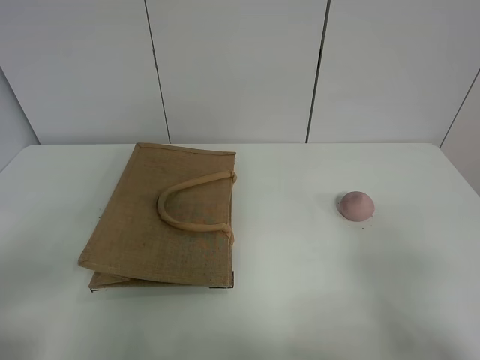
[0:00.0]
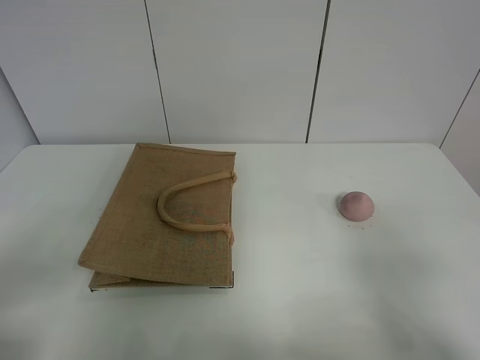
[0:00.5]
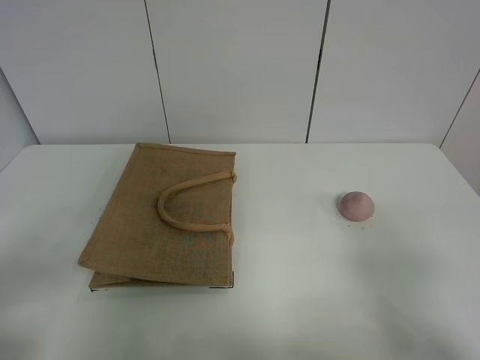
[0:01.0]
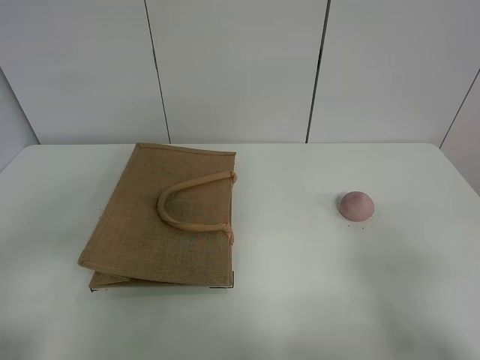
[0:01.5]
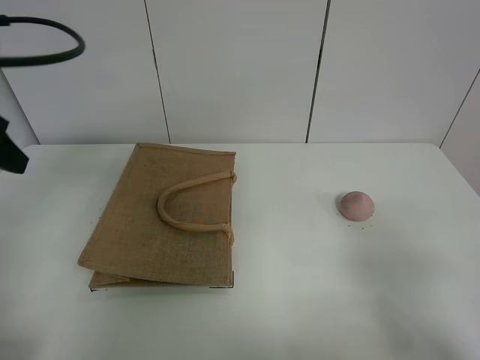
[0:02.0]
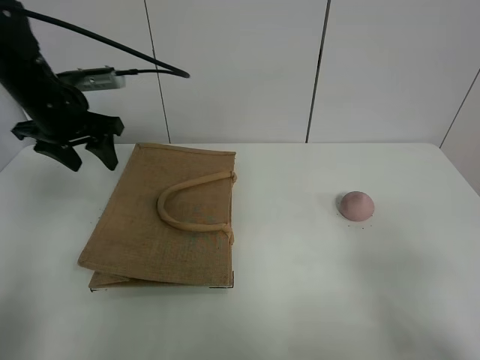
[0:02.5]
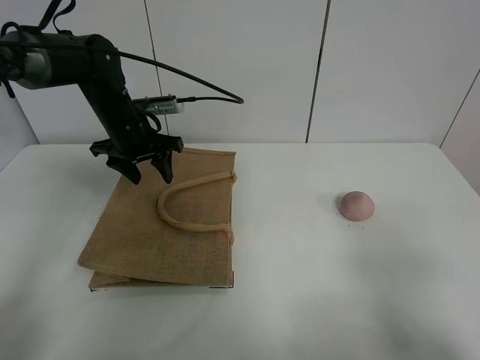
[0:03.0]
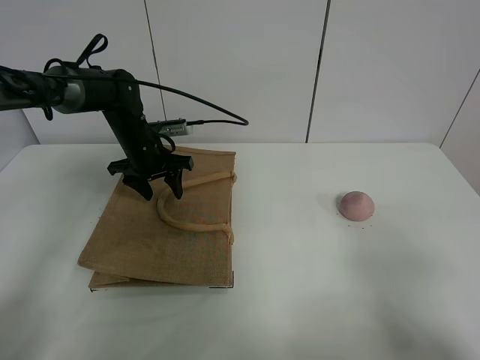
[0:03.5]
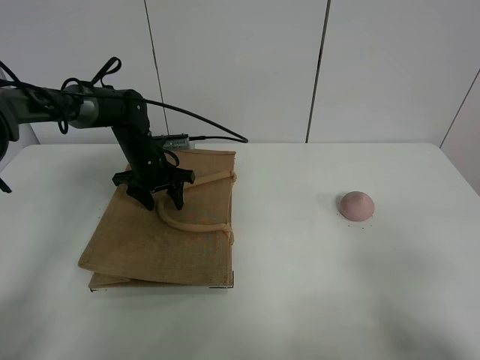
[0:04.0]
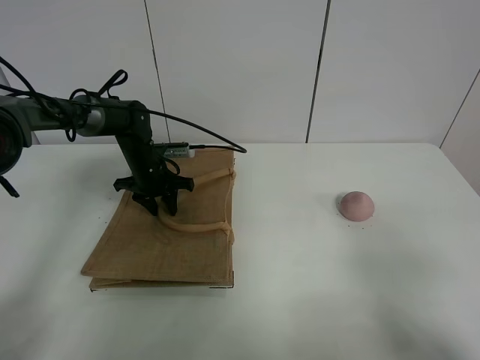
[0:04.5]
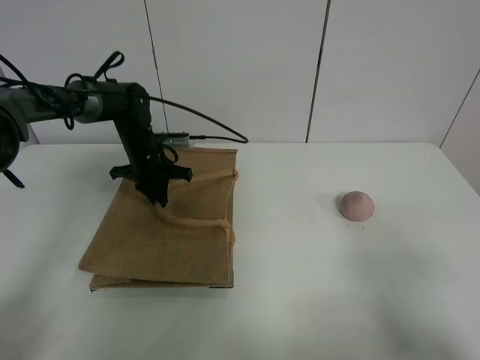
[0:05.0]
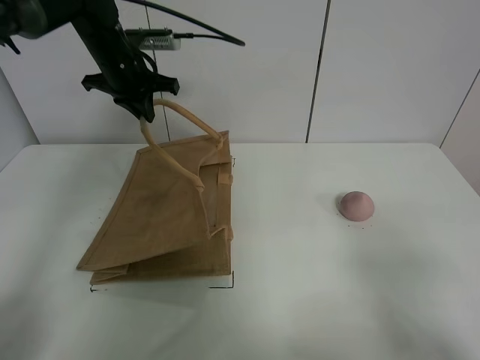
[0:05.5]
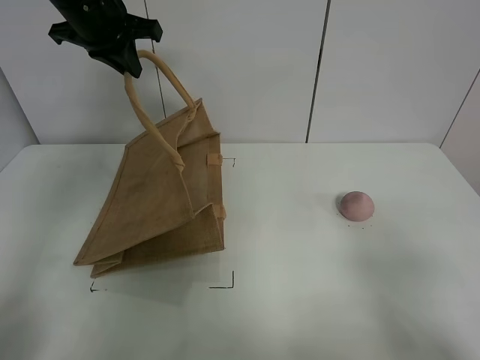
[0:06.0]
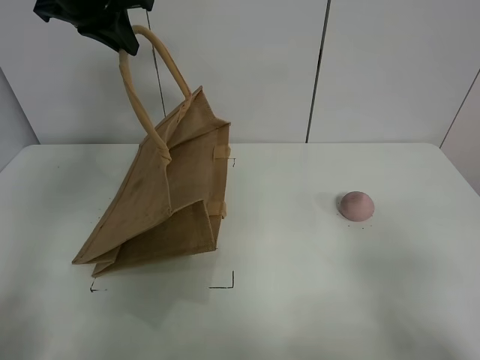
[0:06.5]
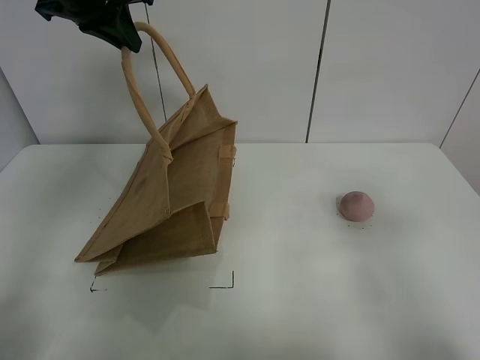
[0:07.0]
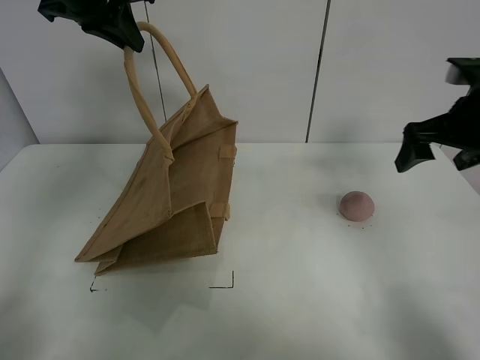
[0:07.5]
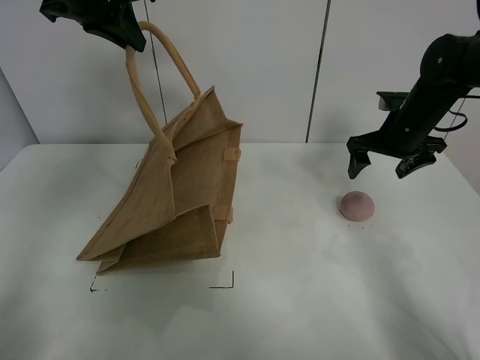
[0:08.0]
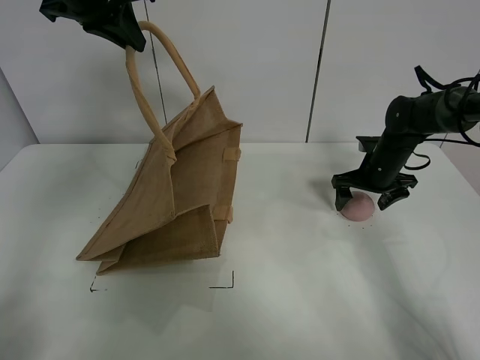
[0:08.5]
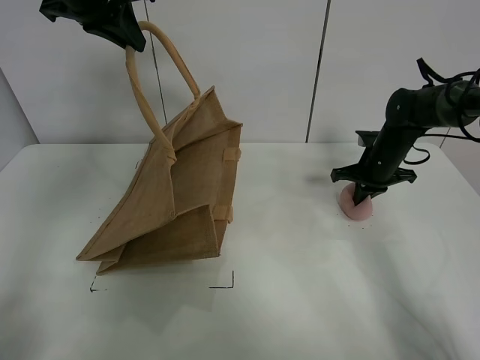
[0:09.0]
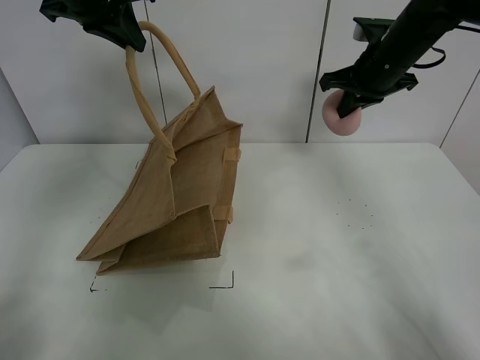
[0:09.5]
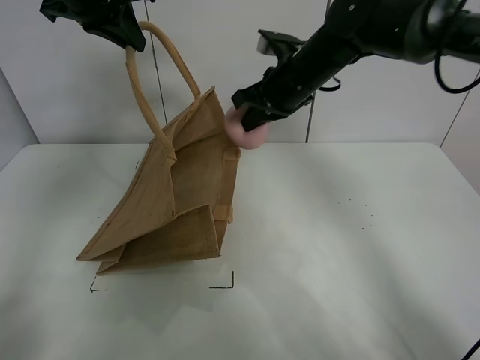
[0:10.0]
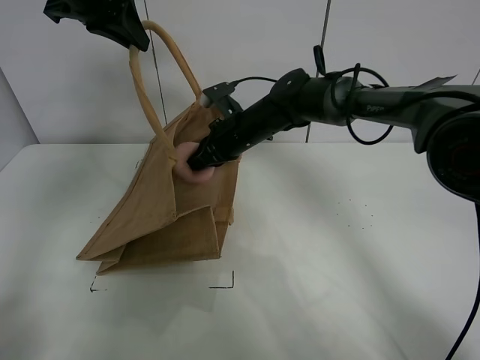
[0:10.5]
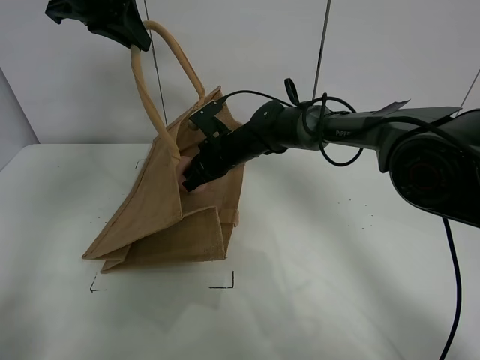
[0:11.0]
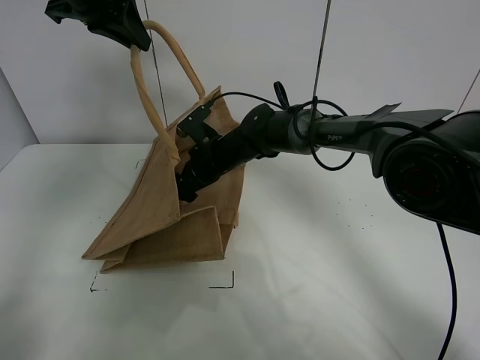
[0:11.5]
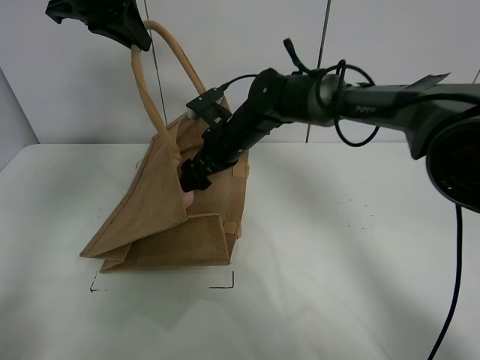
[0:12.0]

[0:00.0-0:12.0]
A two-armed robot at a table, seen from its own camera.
Task of the whole recording: open the brown linen bag and put the peach in the bag.
Step, 0:00.0 to 0:06.5: Lift the handbag with left gripper.
Step, 0:07.0 to 0:08.5: Grasp the peach with right gripper.
0:02.0 to 0:04.0: The left gripper shifts roughly 35 cm forward, downward and to the right.
0:04.0 to 0:06.0: The left gripper heads upward, covering some 25 cm, and closes its fingers.
0:06.0 to 0:08.0: The right gripper travels forward by about 40 cm, while the left gripper shifts by roughly 5 cm.
0:08.0 to 0:10.0: The right gripper heads to the left and upward, covering roughly 20 cm, and closes up.
0:10.0 to 0:12.0: The right gripper shifts about 15 cm downward and to the left, and opens up.

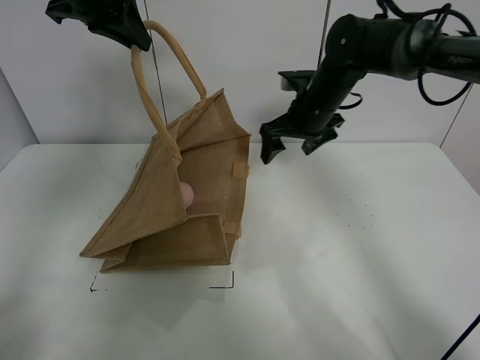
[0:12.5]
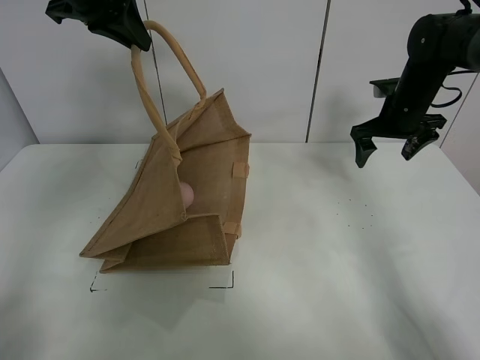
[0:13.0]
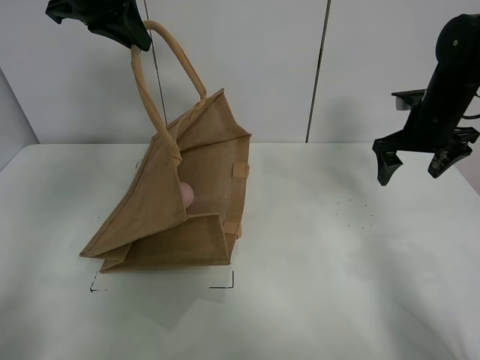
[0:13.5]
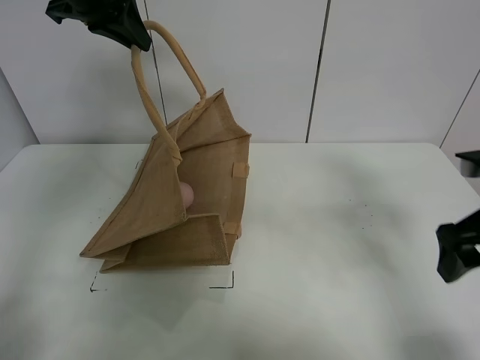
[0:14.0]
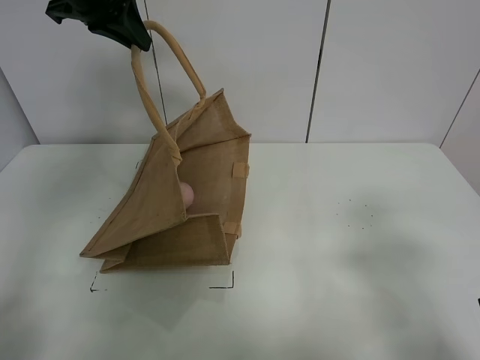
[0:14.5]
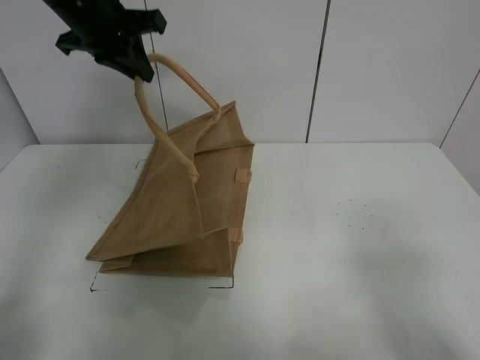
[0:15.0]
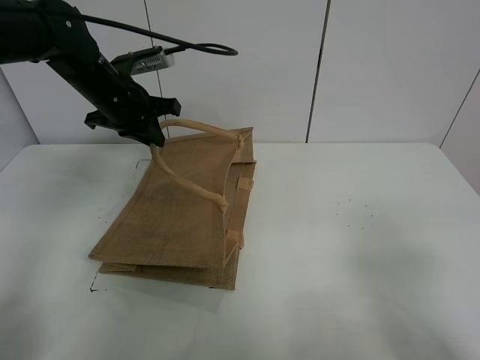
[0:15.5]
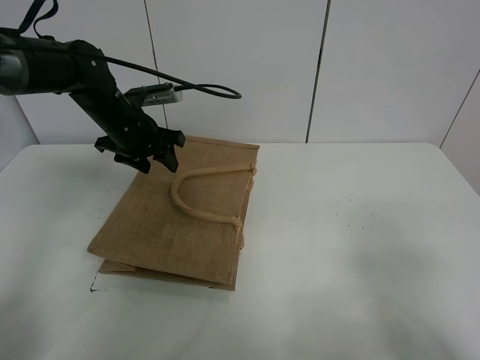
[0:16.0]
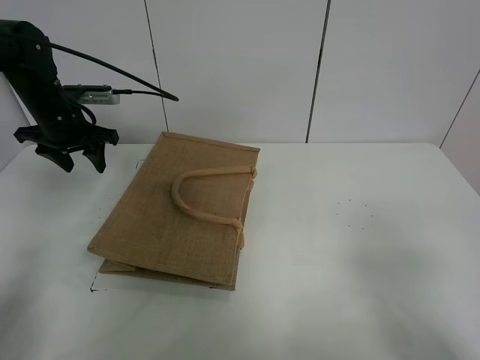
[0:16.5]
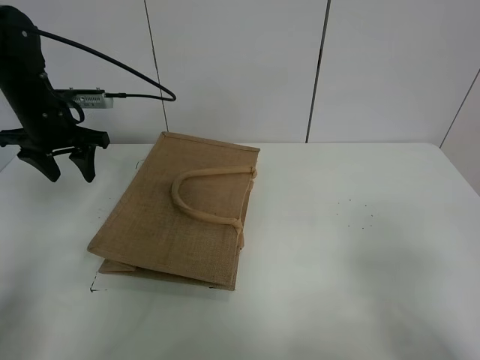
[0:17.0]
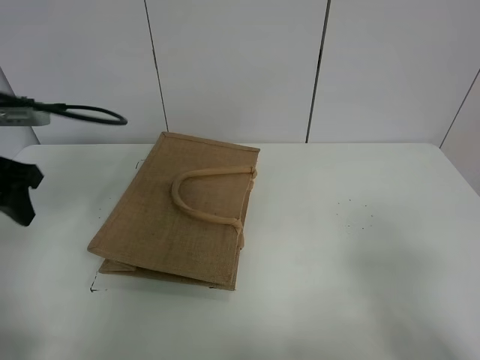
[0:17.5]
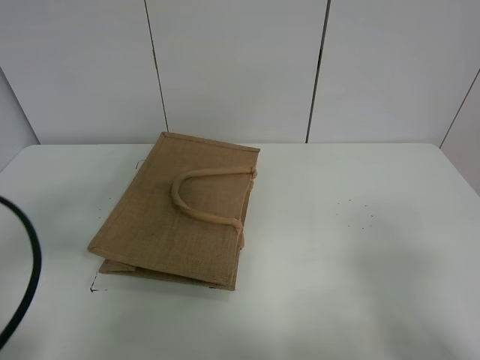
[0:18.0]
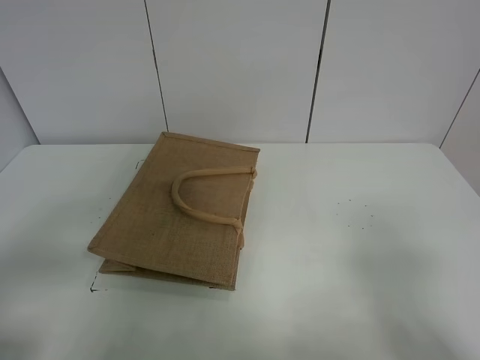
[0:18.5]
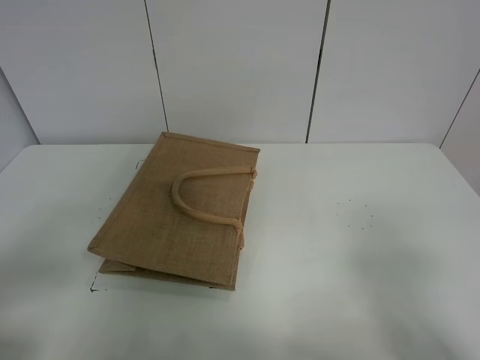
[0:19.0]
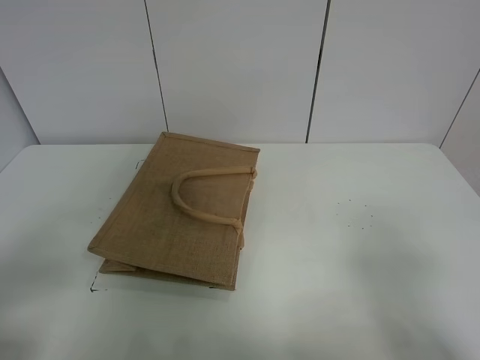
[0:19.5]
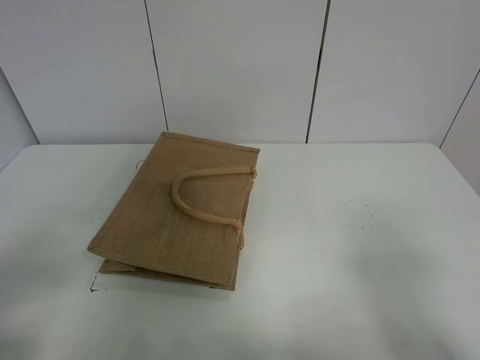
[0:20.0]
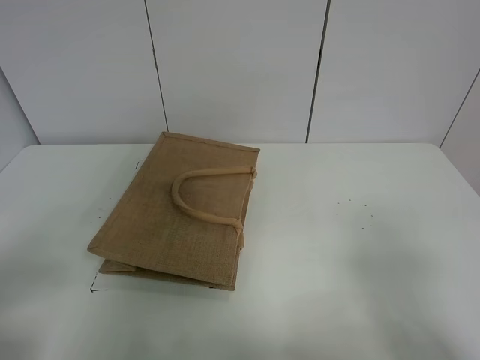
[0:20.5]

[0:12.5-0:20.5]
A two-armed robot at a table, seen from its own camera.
Task of the whole recording: open the brown linen bag and put the peach in the bag.
Step, 0:12.5 to 0:16.0: Put down the handbag with left grippe.
0:12.5 to 0:14.5: The right gripper is displaced backward and to the right by about 40 cm.
0:14.5 to 0:16.5: The left gripper goes about 20 cm downward and to the left, and opens up. Meanwhile the right gripper travels backward by some 10 cm.
0:16.5 to 0:18.5: The left gripper travels backward by approximately 40 cm.

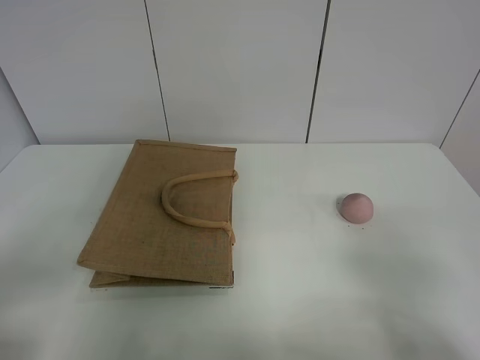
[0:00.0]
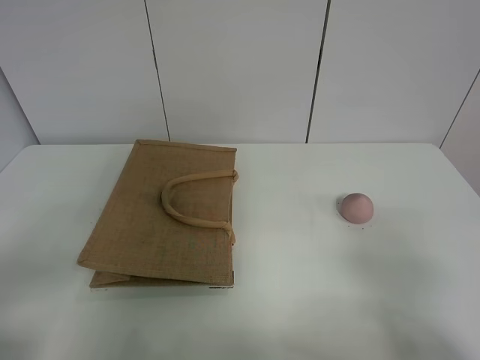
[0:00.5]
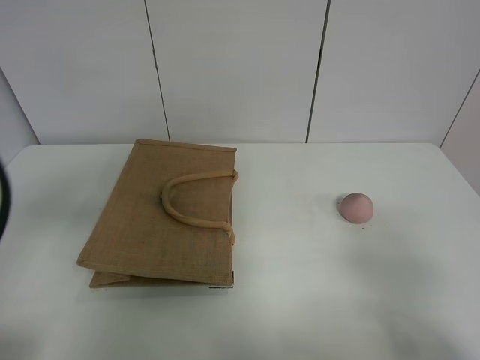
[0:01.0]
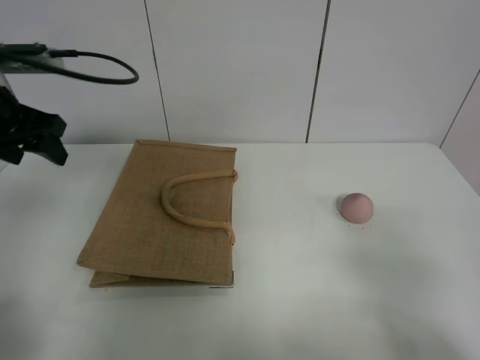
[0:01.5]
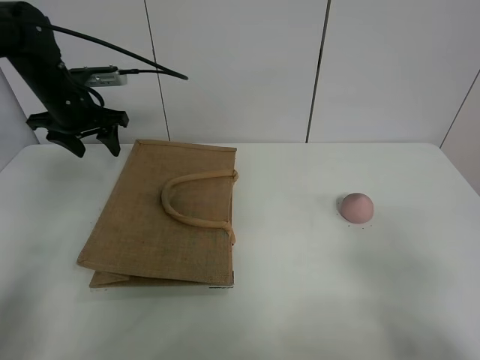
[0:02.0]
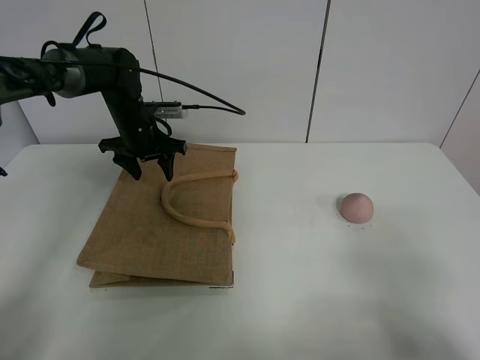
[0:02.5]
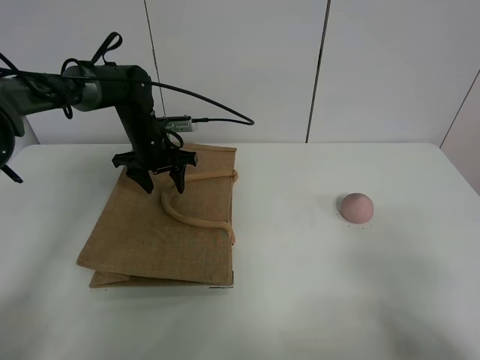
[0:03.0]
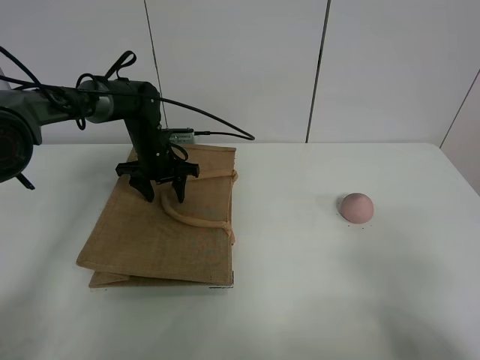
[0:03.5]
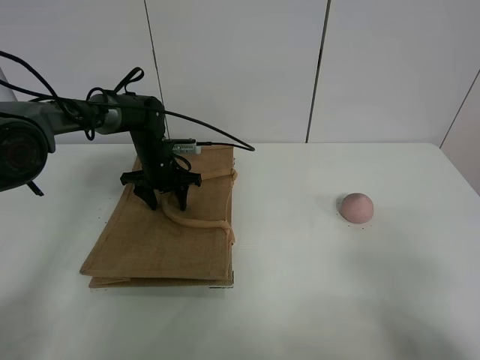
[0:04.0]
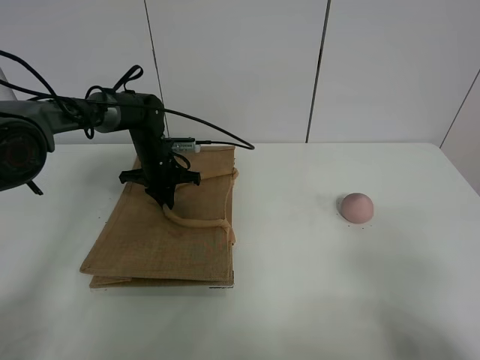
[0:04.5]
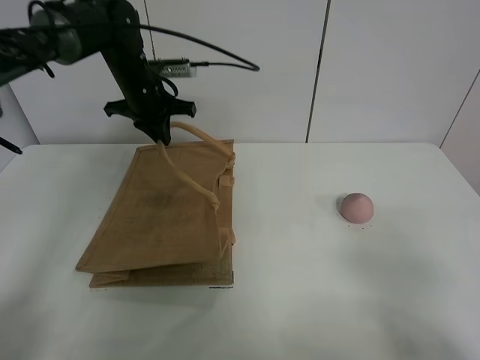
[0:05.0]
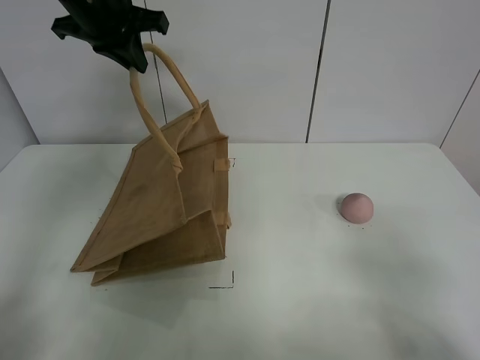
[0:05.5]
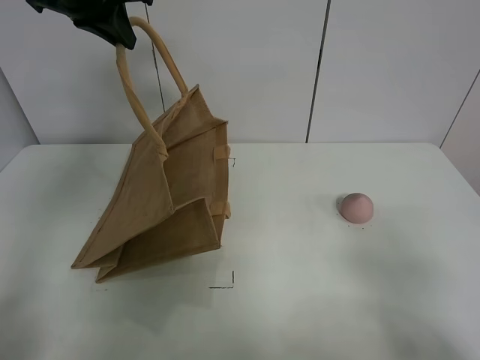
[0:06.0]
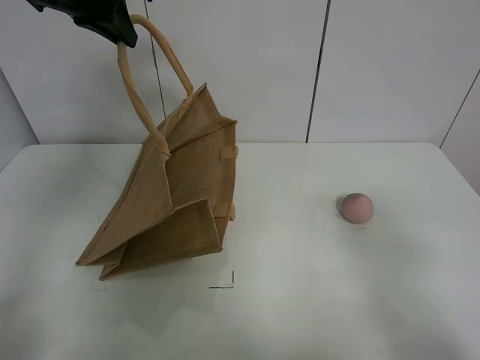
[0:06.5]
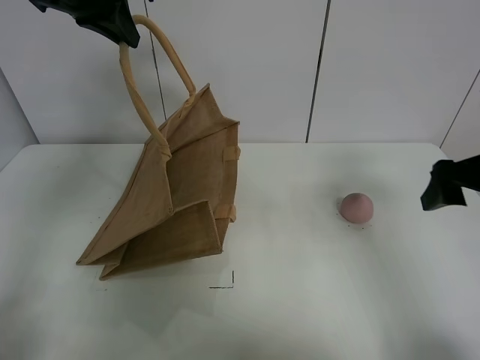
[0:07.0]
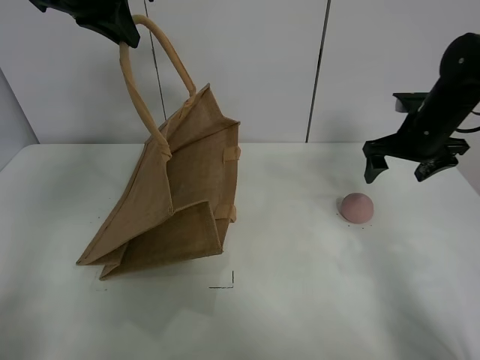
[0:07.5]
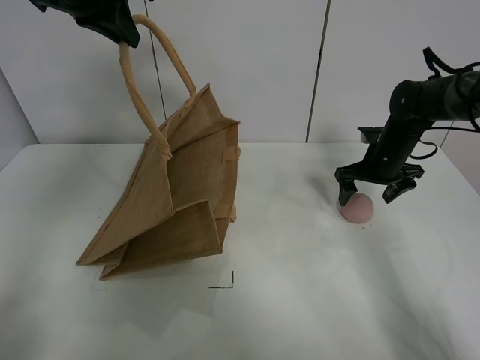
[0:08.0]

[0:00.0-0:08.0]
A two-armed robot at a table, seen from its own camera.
Task of the whole recording: open the brown linen bag and put the peach in the bag.
Step, 0:00.0 to 0:05.5: Lift the handbag with left gripper.
0:00.0 to 0:02.0: The left gripper heads forward, covering roughly 40 cm.
0:02.0 to 0:04.0: The left gripper travels downward and to the right by approximately 20 cm.
0:04.0 to 0:06.0: The left gripper moves upward, about 35 cm, and closes its fingers.
0:06.0 to 0:08.0: The right gripper goes some 40 cm forward.
